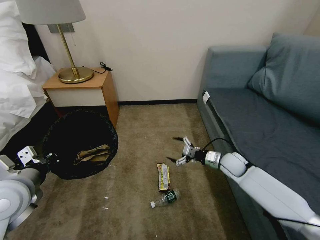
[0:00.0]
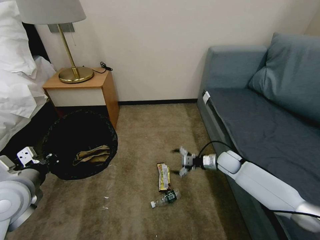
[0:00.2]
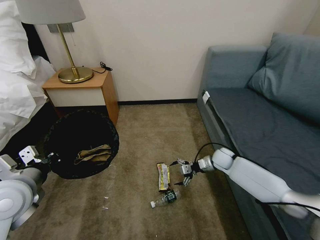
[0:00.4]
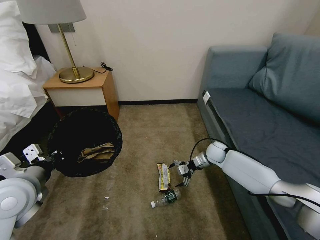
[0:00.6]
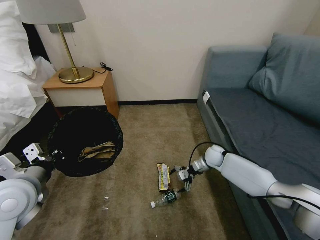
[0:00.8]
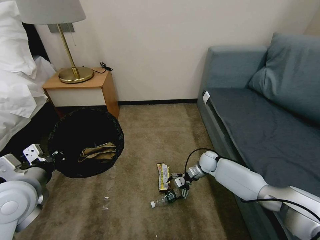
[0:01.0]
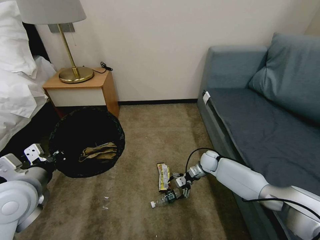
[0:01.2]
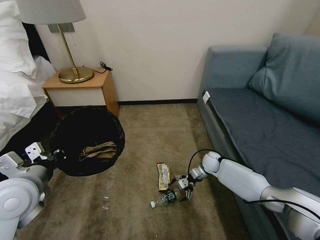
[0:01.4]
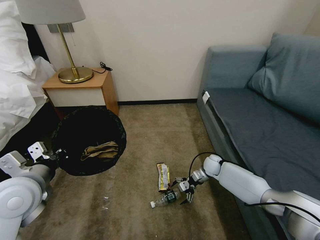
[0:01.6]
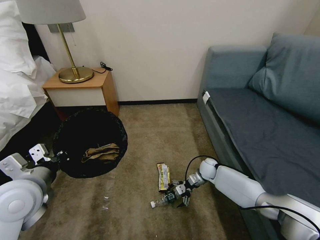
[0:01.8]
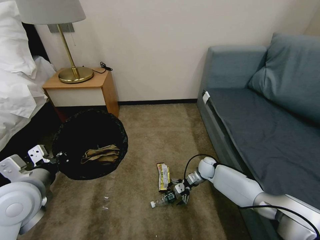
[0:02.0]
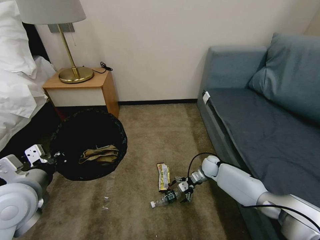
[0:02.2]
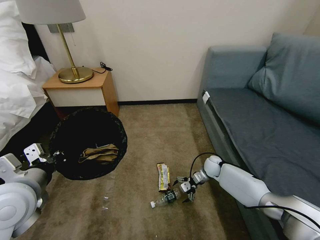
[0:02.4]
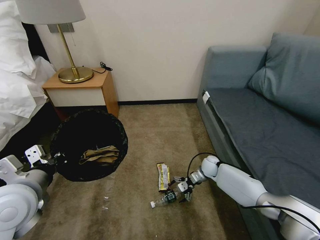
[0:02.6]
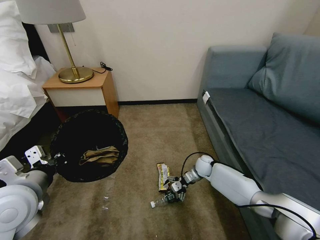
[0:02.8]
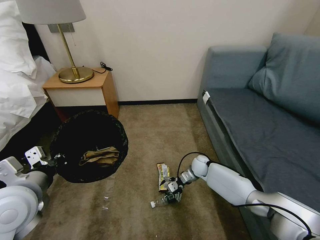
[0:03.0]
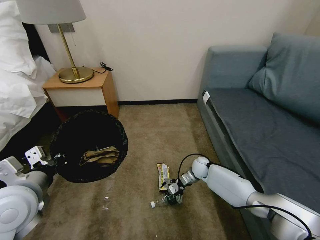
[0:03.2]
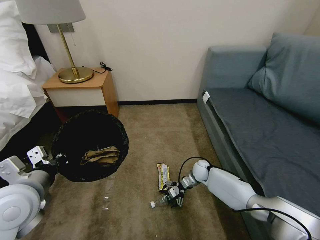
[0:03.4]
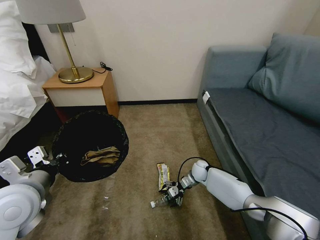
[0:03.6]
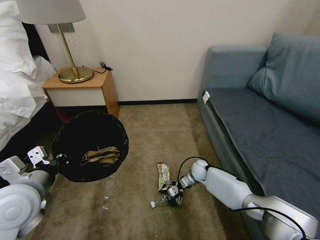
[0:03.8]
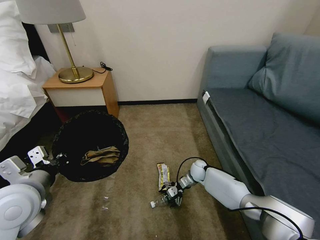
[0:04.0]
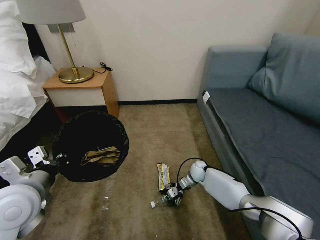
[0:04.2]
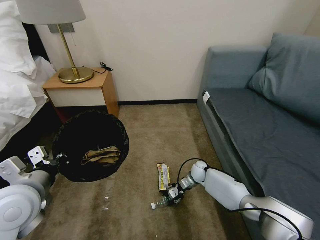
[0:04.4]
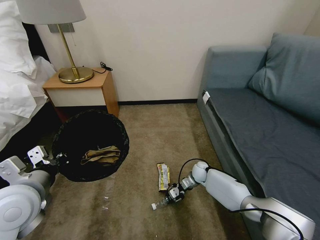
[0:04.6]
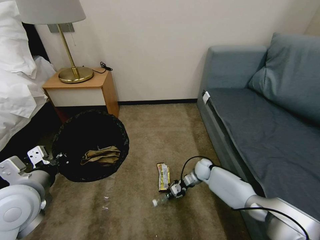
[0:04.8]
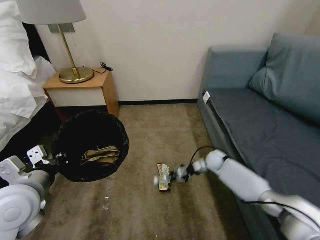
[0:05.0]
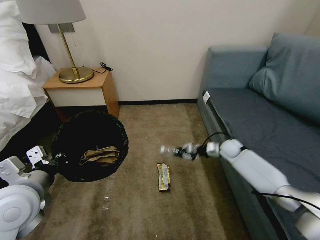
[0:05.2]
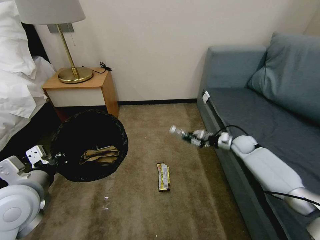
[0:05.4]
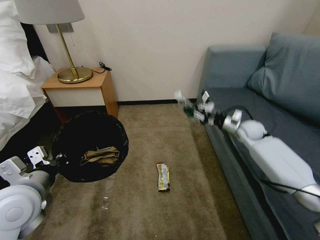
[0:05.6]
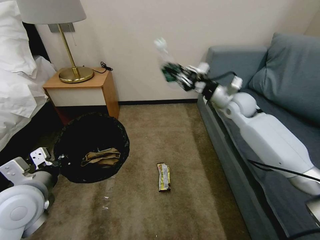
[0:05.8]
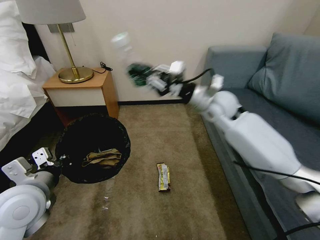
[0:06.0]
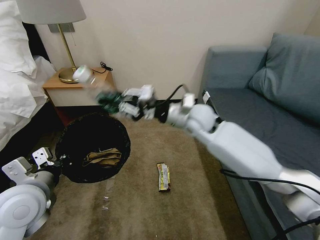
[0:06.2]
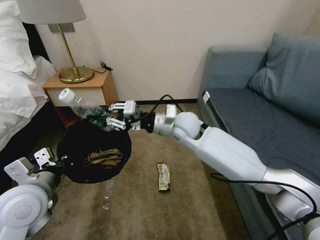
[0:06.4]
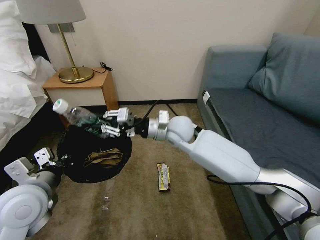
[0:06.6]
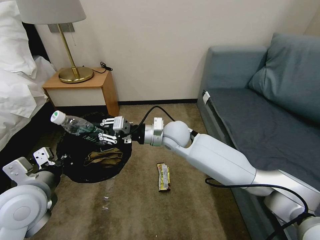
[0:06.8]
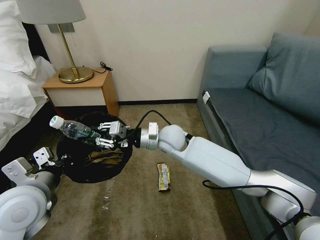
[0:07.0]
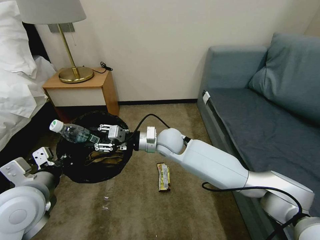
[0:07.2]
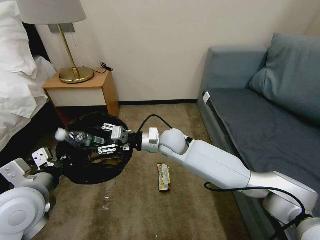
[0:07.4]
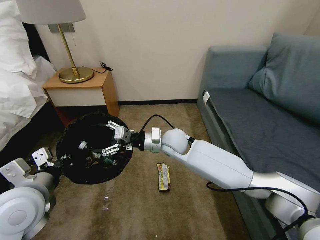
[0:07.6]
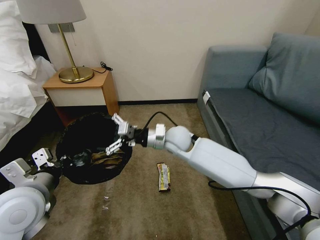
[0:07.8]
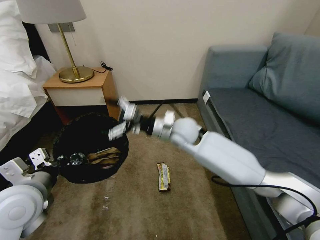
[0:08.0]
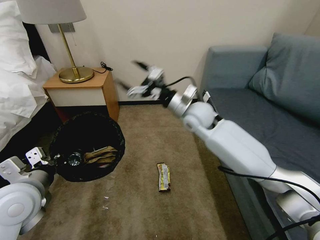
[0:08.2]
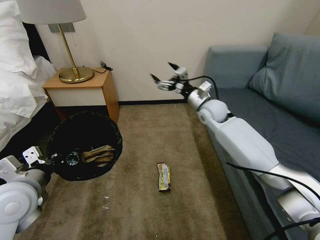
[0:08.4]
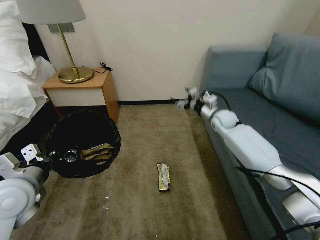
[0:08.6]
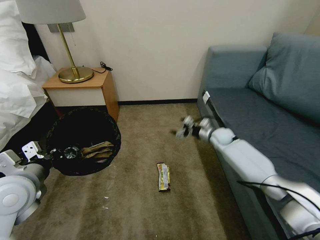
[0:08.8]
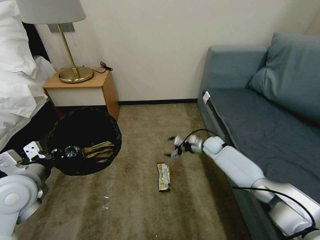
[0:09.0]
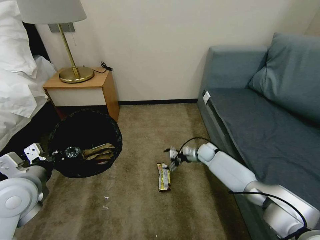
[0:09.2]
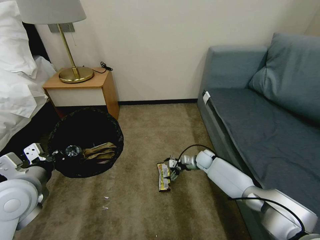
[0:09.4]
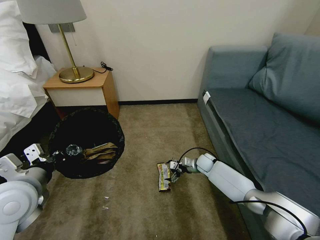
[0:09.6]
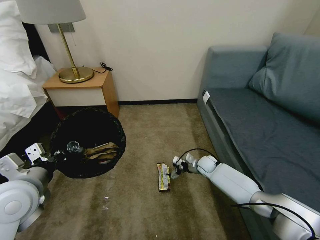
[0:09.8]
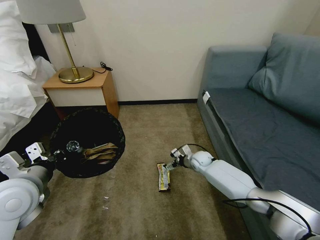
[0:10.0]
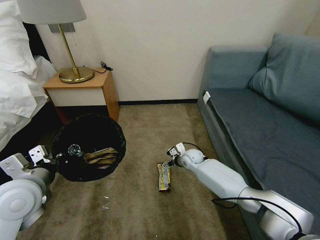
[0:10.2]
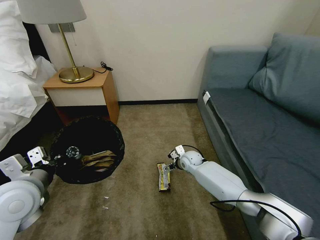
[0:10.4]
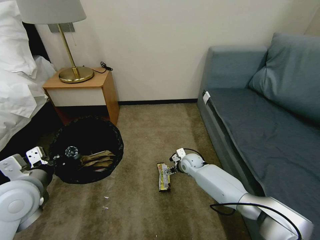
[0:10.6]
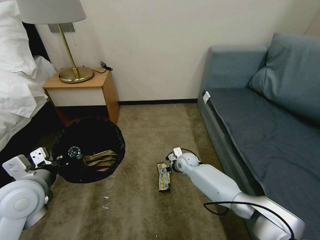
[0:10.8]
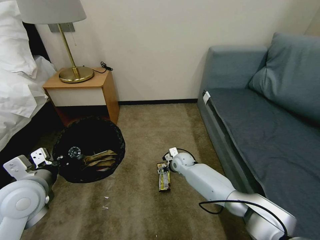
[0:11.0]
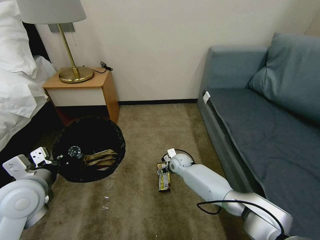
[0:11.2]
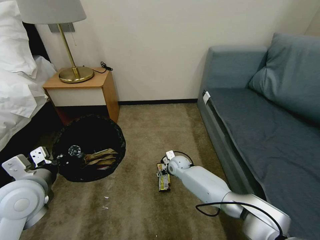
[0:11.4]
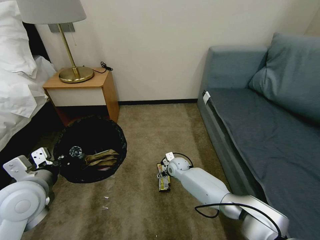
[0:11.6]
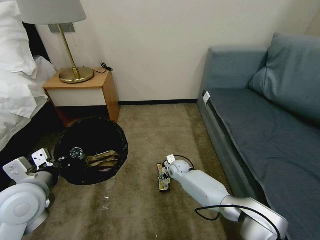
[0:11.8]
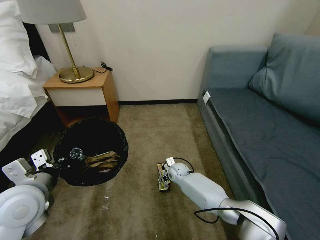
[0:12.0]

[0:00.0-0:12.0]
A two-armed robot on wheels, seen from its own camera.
Task of the whole recording: Pick up the trash bin, then pick up the garbage on the floor and place it into the trash bin.
0:00.0 to 0:01.6: The right gripper is displaced downward and forward by some 10 cm.
0:01.6 to 0:03.0: The right gripper is displaced to the left by approximately 5 cm.
0:03.0 to 0:04.4: The right gripper closes its fingers.
0:04.4 to 0:06.0: The right gripper shifts about 40 cm upward, and closes.
0:06.0 to 0:07.6: The right gripper is displaced to the left and downward by approximately 20 cm, and opens up.
0:07.6 to 0:09.0: The right gripper heads to the right, downward and forward, covering approximately 30 cm. The left gripper ends up approximately 5 cm from where it was.
0:09.0 to 0:10.4: The right gripper travels to the left and backward by about 15 cm.
0:10.4 to 0:12.0: The right gripper shifts roughly 10 cm downward and to the left.

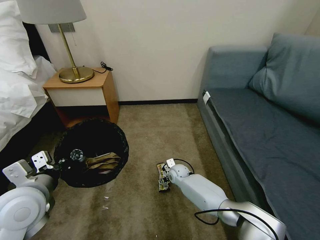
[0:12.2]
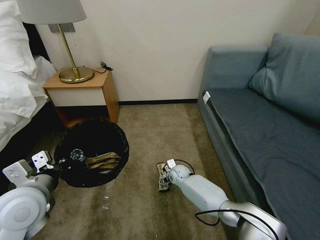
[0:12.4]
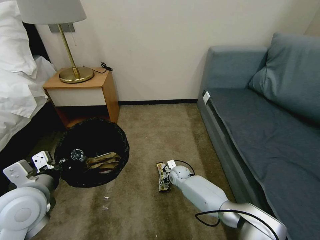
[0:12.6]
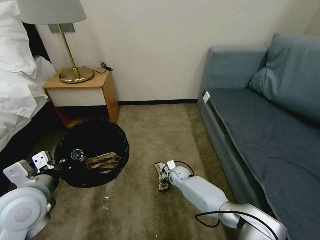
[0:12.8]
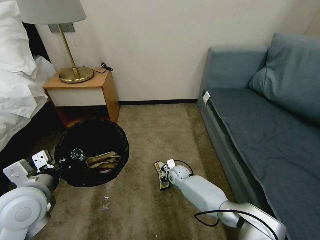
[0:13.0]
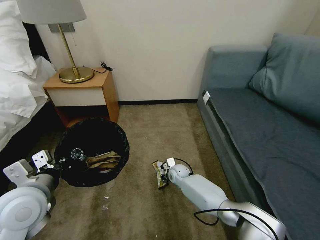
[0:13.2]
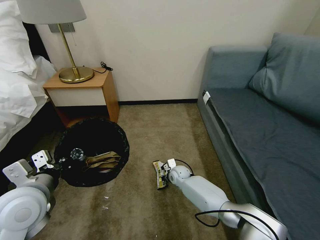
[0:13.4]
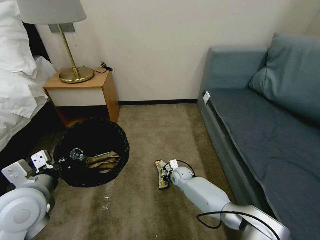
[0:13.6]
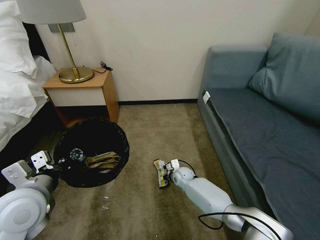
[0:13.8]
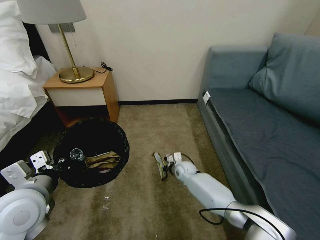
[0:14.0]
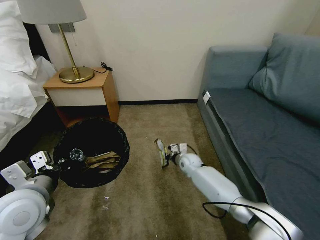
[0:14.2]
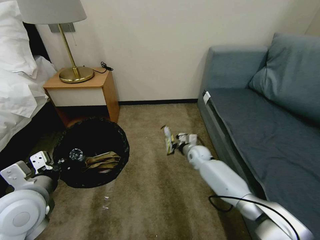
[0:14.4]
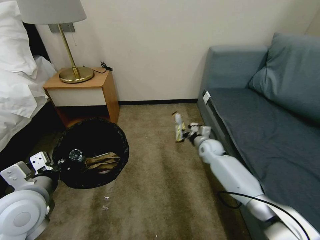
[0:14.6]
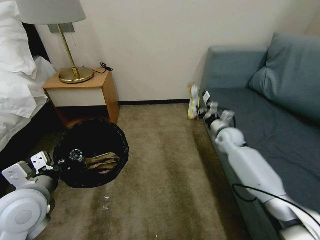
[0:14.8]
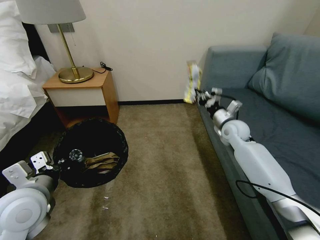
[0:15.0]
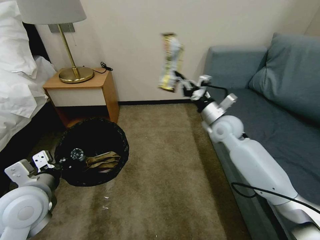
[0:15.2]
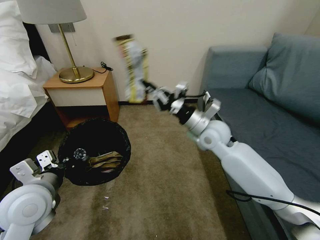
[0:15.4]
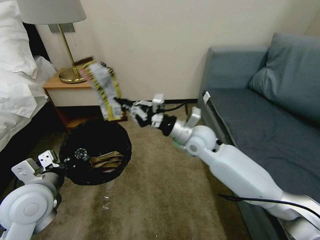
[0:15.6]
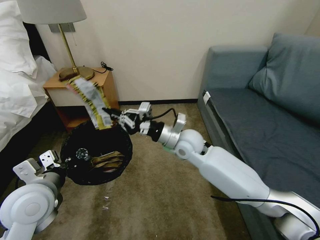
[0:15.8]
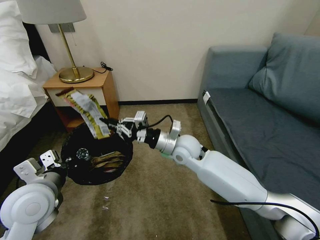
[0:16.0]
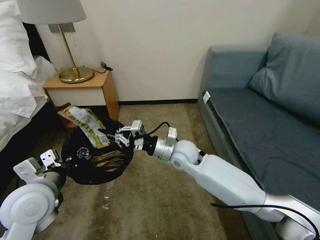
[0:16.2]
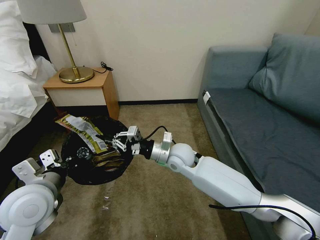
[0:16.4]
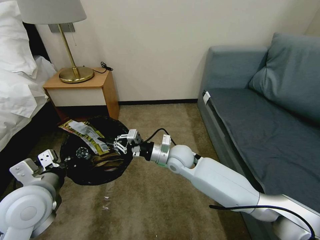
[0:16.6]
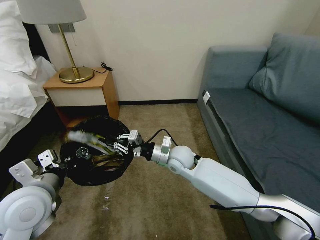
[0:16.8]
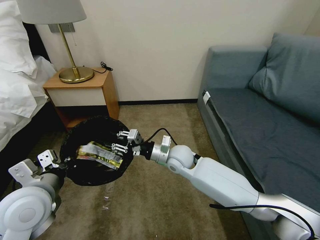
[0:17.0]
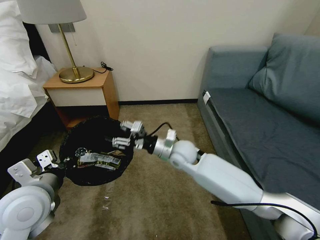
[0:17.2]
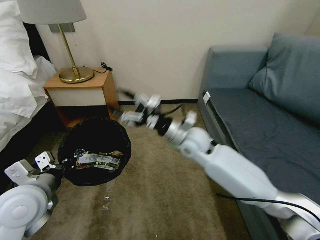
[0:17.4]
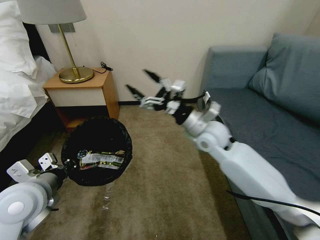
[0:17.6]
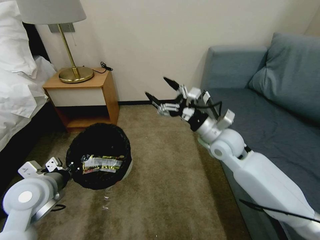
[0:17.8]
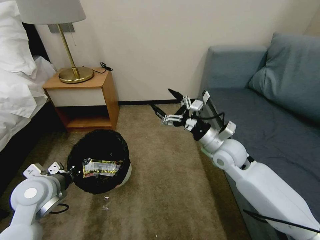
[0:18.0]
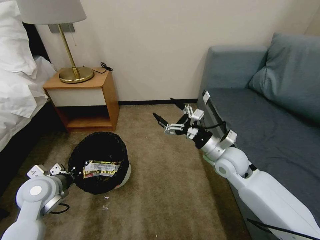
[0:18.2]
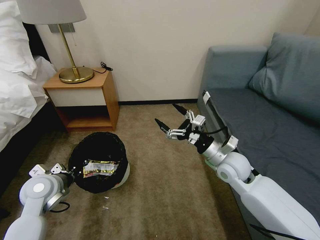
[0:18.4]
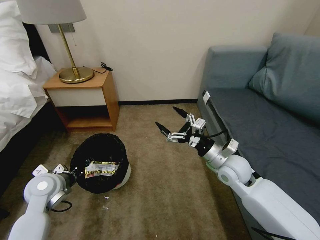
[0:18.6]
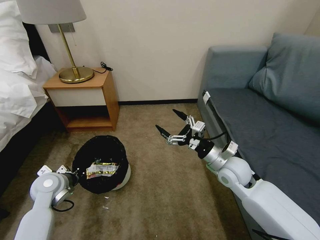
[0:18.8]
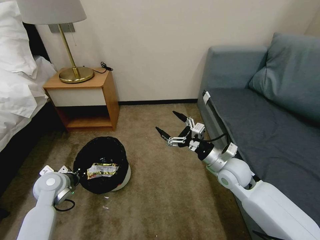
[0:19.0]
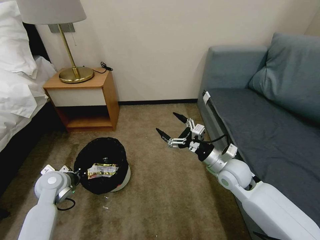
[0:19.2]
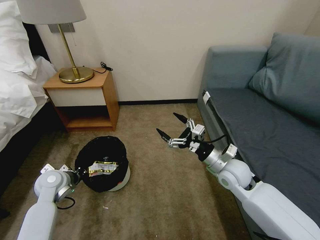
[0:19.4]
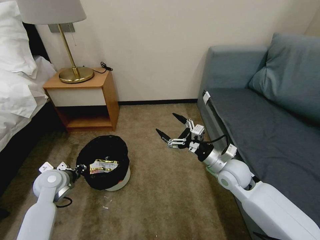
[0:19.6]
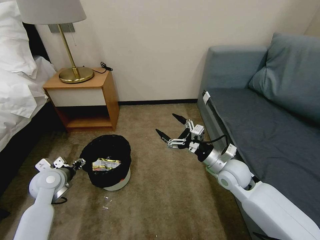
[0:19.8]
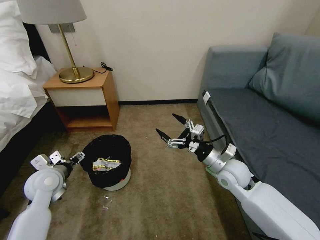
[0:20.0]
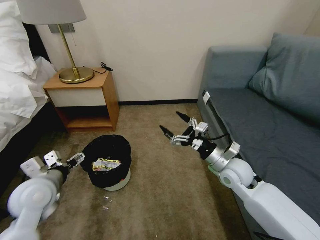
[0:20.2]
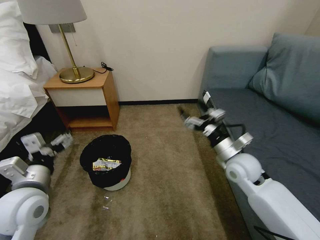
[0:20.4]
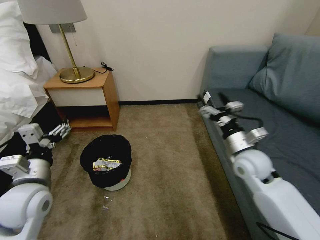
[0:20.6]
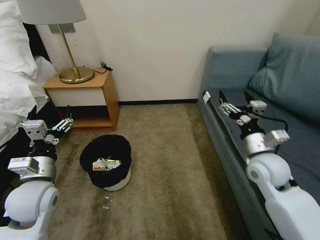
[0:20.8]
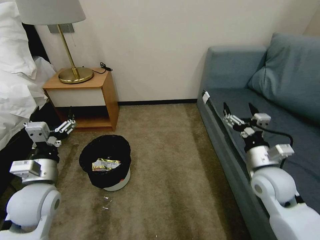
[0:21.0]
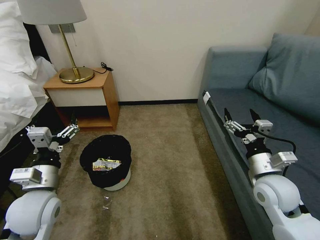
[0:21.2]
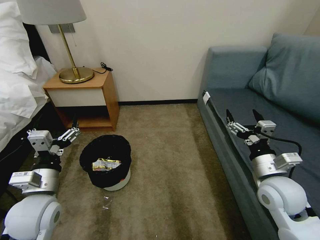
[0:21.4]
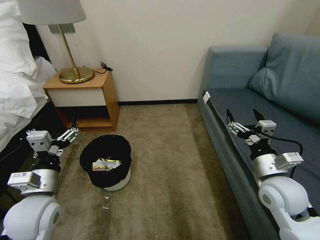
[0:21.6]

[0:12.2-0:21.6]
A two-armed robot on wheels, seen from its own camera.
Task of the whole recording: Pick up the trash bin, then pick up the garbage on the floor and place it into the trash bin.
0:12.2 to 0:13.8: The right gripper closes its fingers.
0:13.8 to 0:15.4: The right gripper goes some 30 cm upward.
0:15.4 to 0:17.0: The right gripper moves downward and to the left, roughly 15 cm, and opens.
0:17.0 to 0:18.4: The right gripper heads to the right, covering about 15 cm, and opens up, while the left gripper travels downward, forward and to the left by some 10 cm.
0:18.4 to 0:20.0: The left gripper opens up.
0:20.0 to 0:21.6: The left gripper goes about 15 cm backward, to the right and upward. The right gripper moves to the right and backward, approximately 10 cm.
